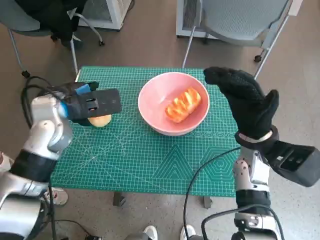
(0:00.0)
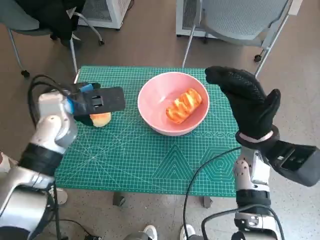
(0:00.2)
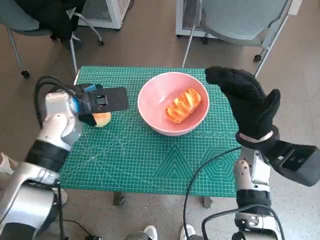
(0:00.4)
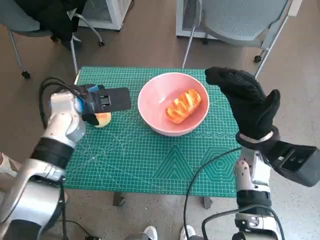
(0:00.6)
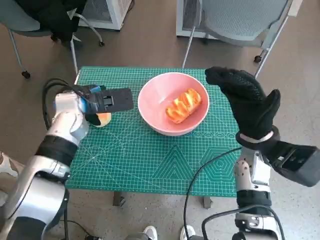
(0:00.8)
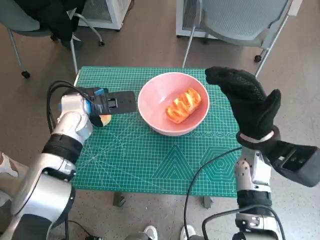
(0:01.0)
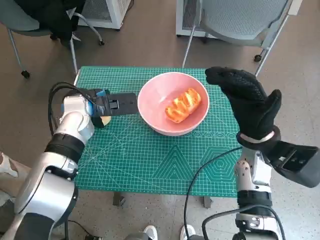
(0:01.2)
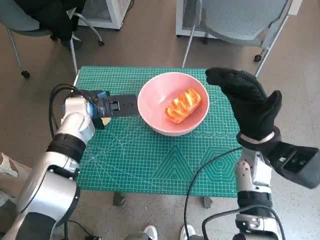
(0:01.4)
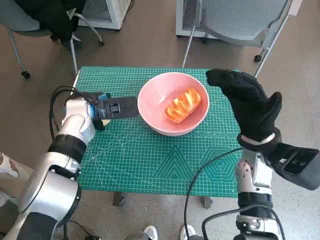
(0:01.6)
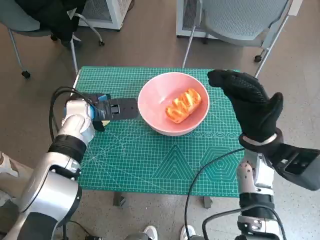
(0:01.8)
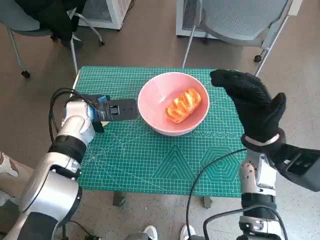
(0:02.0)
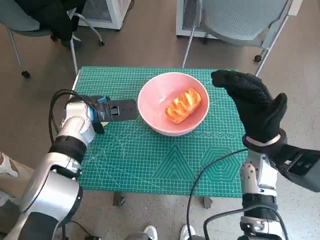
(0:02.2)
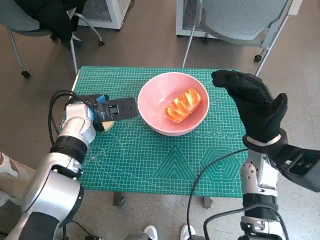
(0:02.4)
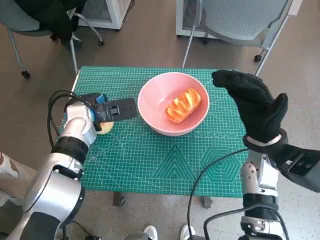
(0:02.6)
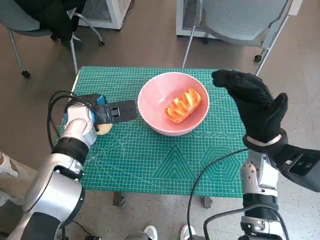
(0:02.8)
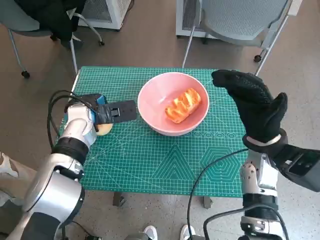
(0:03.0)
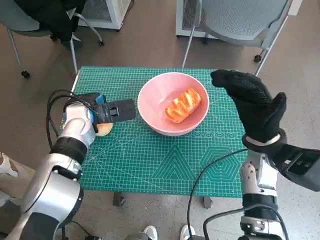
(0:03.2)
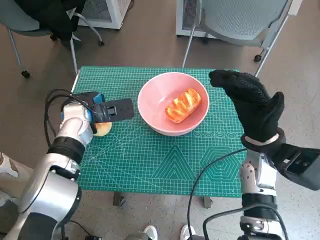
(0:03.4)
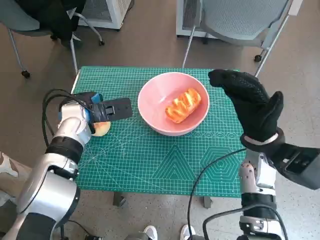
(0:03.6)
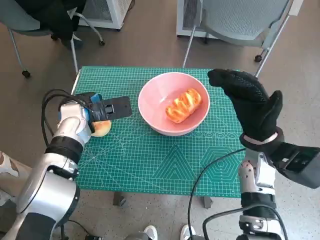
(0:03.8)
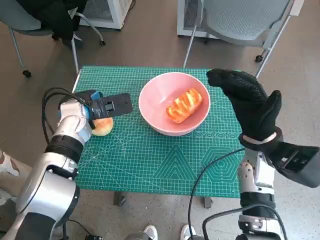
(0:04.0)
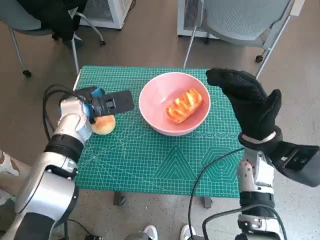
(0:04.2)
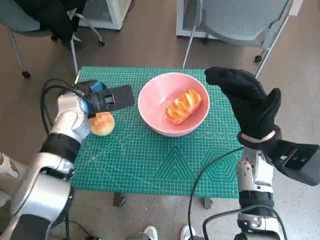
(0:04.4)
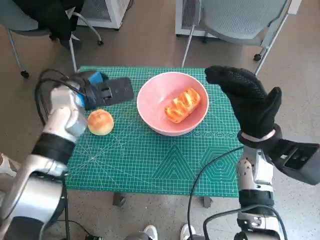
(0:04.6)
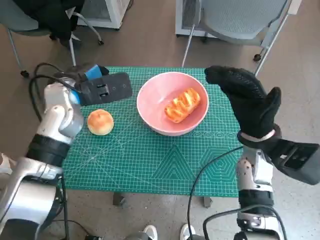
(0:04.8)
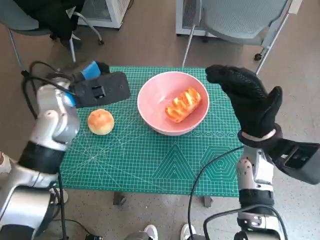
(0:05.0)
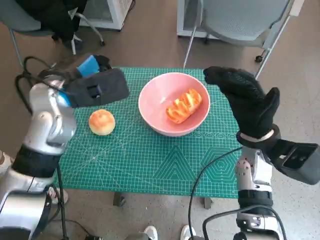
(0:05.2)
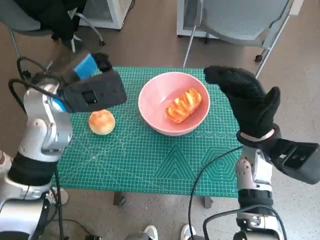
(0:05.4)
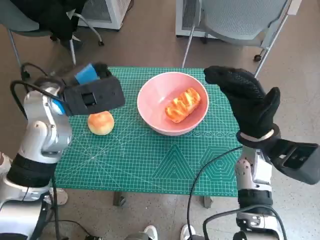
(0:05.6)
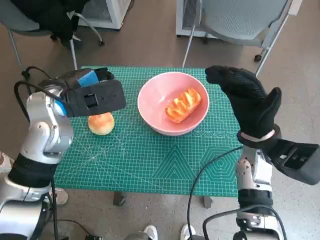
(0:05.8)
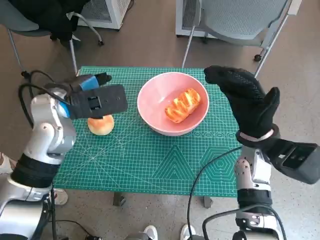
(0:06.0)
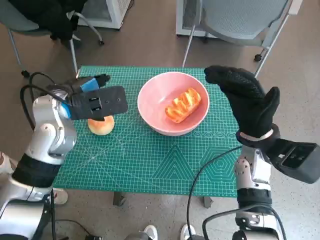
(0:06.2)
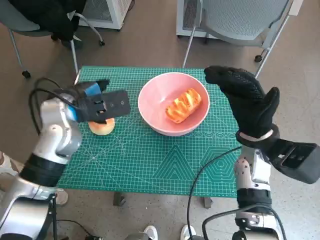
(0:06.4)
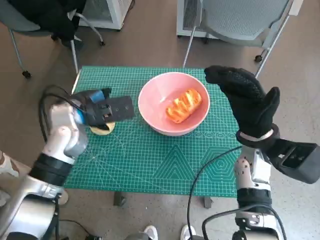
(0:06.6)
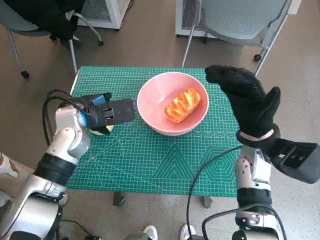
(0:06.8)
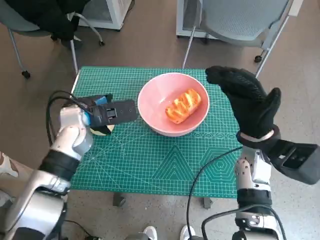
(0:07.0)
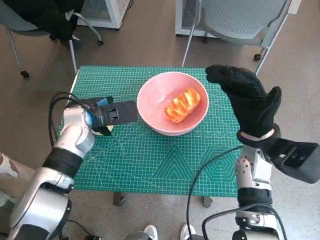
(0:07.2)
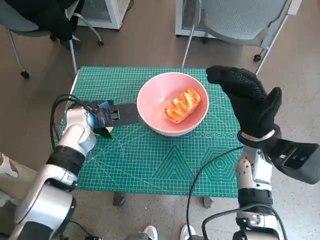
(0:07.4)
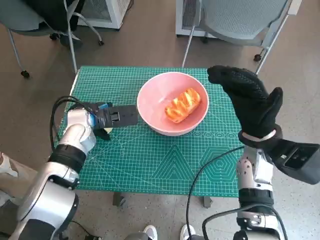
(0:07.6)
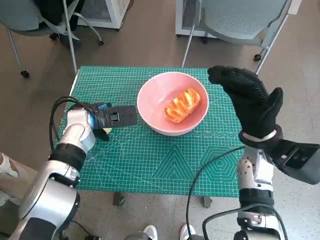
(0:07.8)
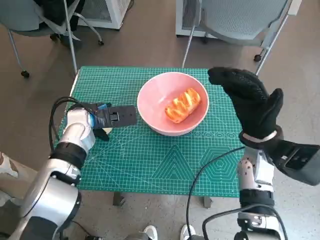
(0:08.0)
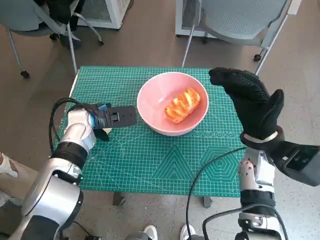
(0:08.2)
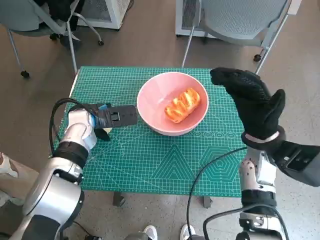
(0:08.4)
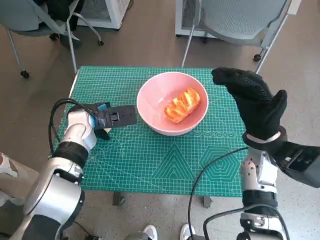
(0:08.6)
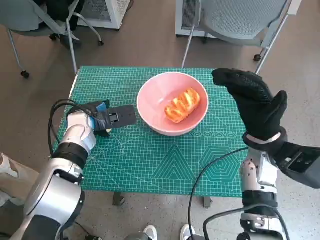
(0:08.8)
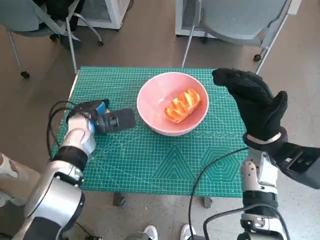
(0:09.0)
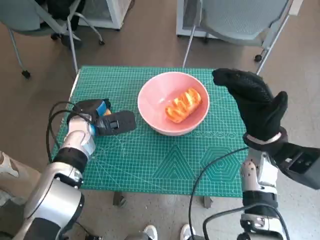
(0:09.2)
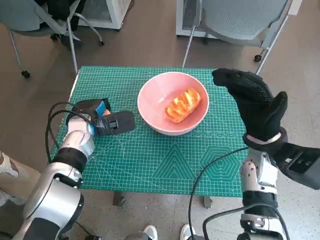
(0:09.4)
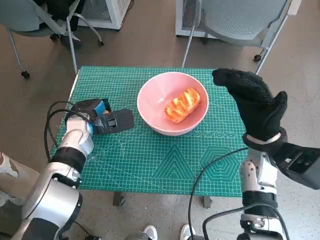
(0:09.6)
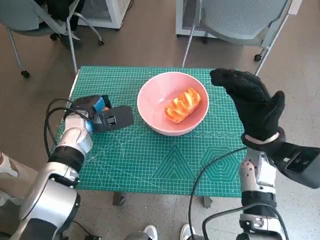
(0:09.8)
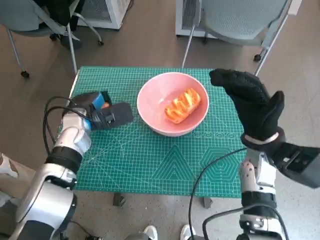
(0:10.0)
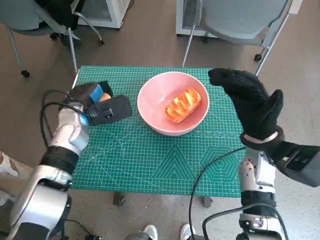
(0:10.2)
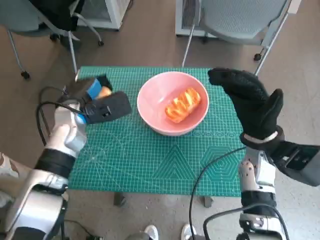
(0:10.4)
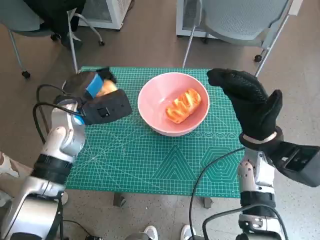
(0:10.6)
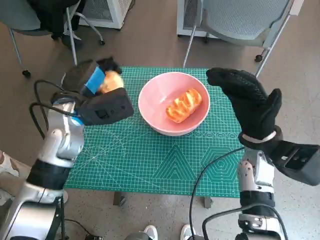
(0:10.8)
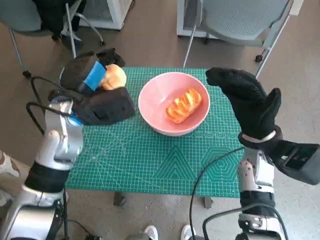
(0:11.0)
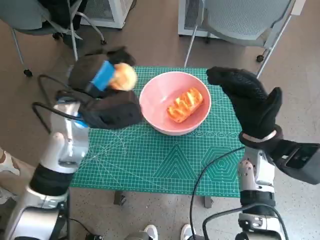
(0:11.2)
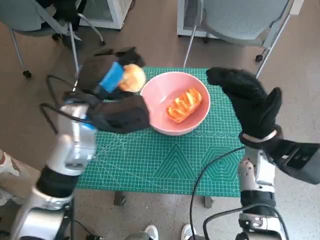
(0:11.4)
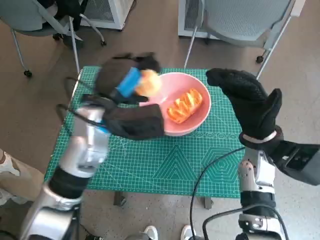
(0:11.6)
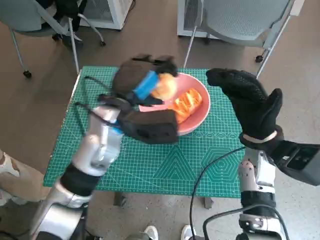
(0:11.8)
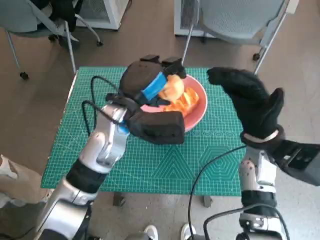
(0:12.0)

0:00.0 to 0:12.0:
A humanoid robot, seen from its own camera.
Step, 0:00.0 to 0:09.0: Grasp the round bread with left hand.
0:00.0 to 0:01.6: The left hand heads downward, covering roughly 5 cm.
0:01.6 to 0:04.4: There are only small adjustments of the hands.
0:04.4 to 0:06.0: The left hand shifts approximately 5 cm upward.
0:06.0 to 0:07.6: The left hand heads downward, covering about 10 cm.
0:07.6 to 0:09.0: The hands move only a little.
0:09.0 to 0:10.4: The hands stay close to where they were, moving slightly.
0:10.4 to 0:12.0: The left hand heads to the right, covering approximately 10 cm.

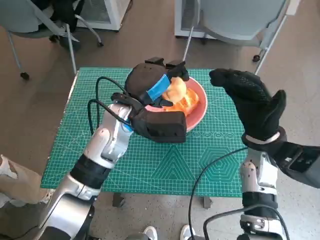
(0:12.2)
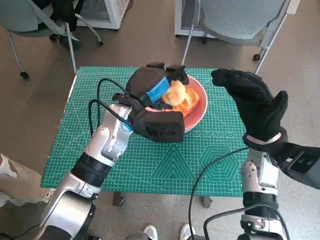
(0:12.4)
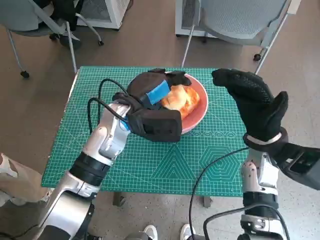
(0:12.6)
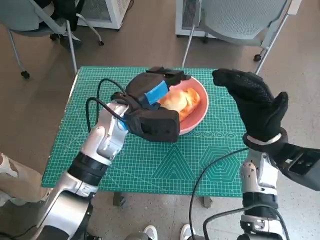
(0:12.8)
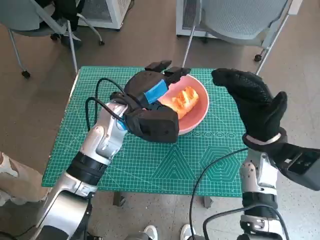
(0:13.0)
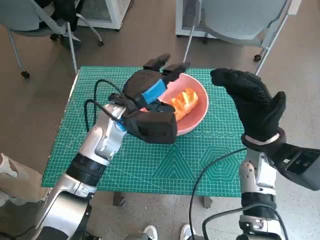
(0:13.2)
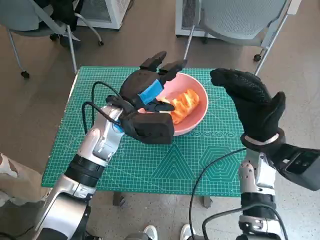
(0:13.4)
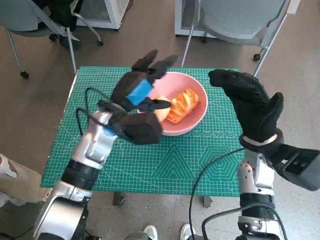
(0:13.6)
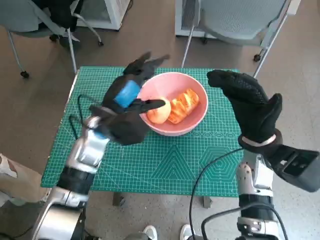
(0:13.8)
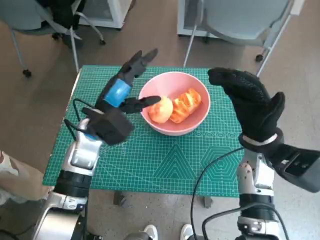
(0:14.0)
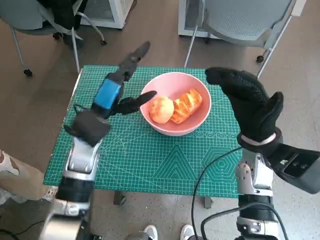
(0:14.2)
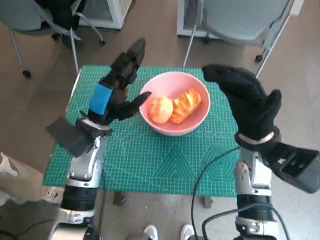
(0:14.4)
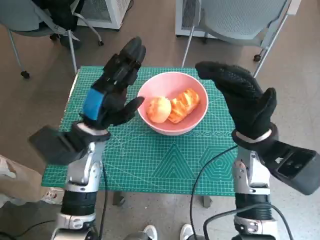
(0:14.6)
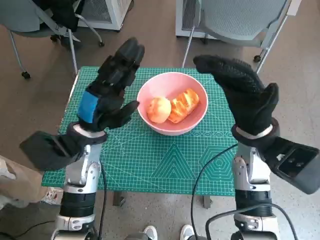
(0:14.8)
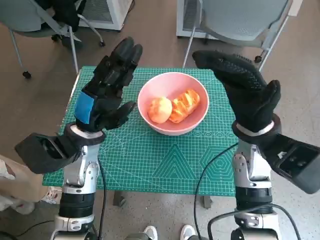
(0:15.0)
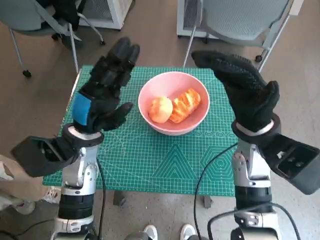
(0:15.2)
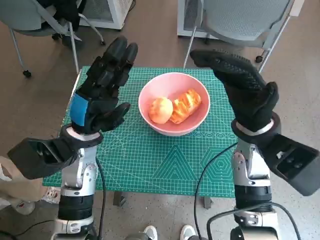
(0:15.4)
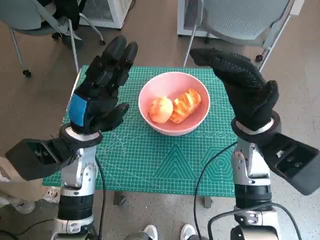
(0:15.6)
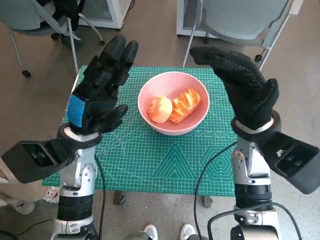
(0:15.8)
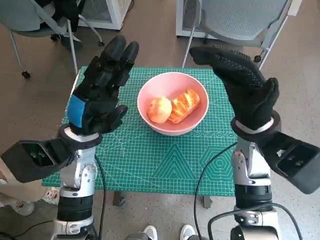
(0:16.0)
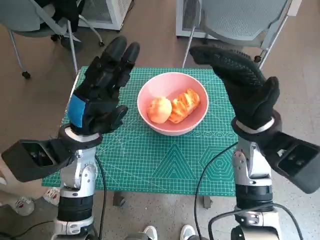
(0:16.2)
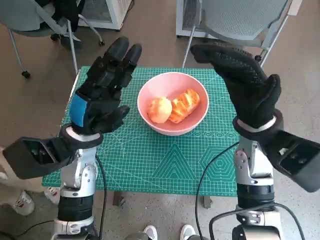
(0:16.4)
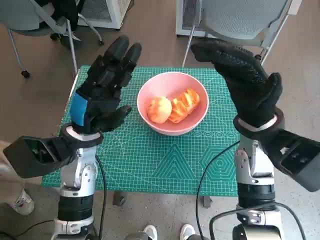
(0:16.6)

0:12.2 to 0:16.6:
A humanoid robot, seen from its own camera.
0:12.2 to 0:13.6: The hands move only a little.
0:13.6 to 0:15.2: The right hand shifts by about 5 cm; the left hand goes approximately 5 cm backward and to the left.
0:15.2 to 0:16.6: Both hands stay put.
